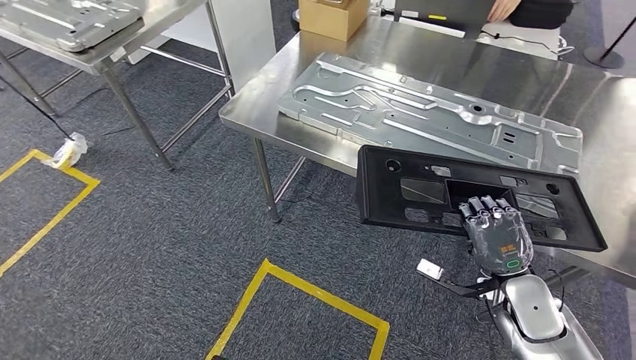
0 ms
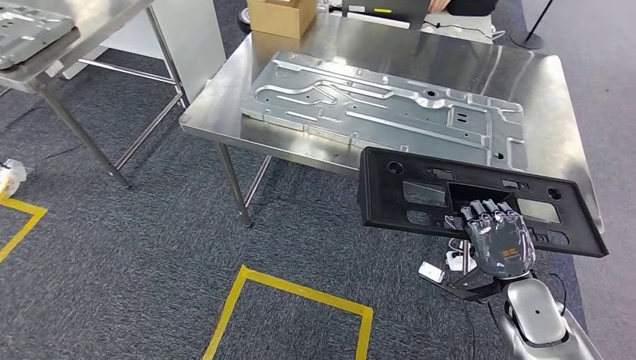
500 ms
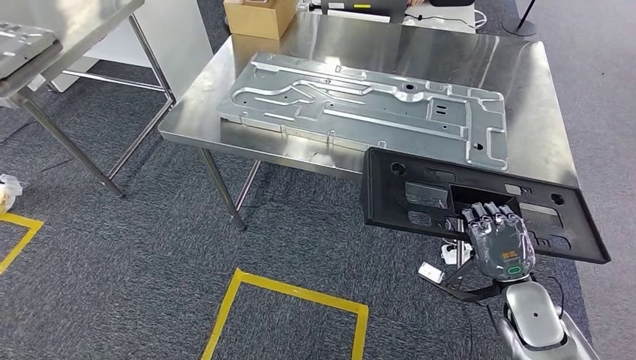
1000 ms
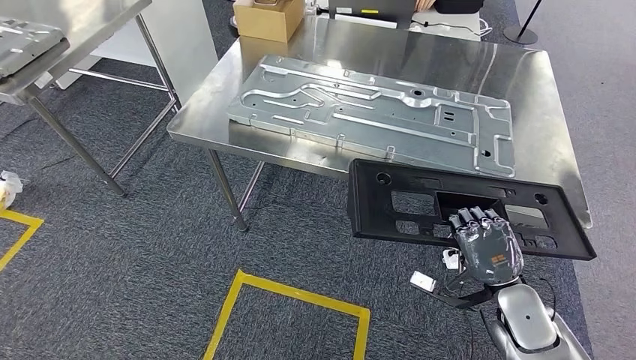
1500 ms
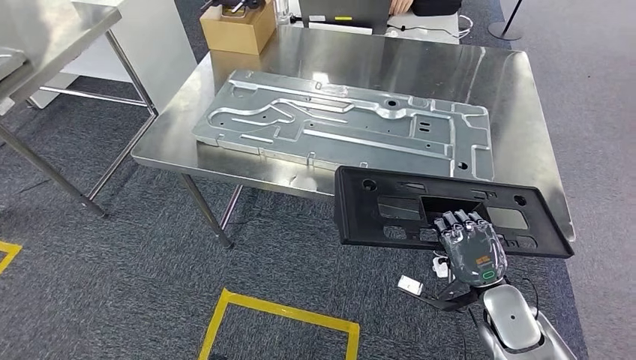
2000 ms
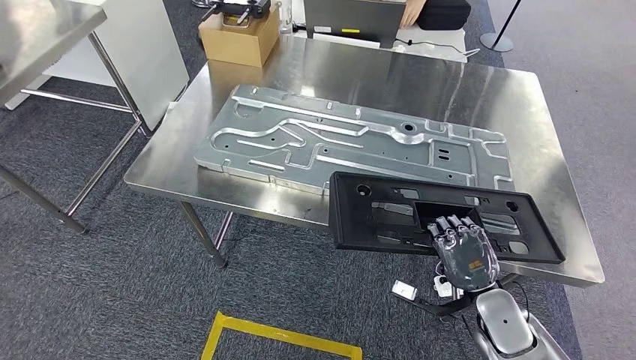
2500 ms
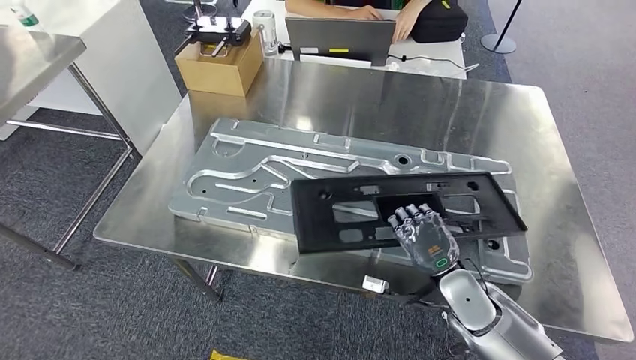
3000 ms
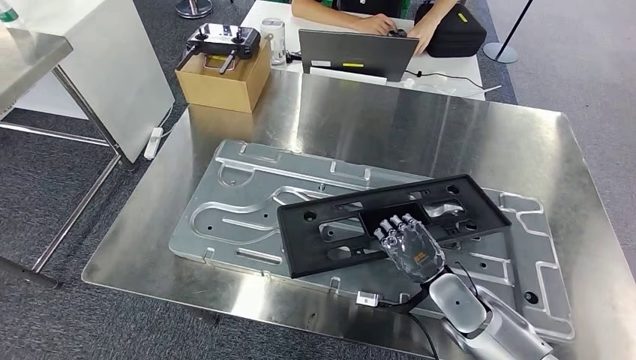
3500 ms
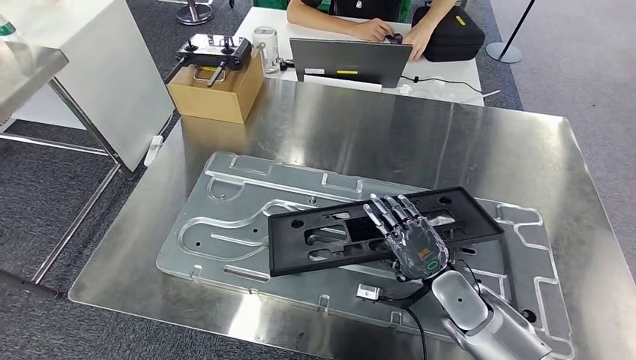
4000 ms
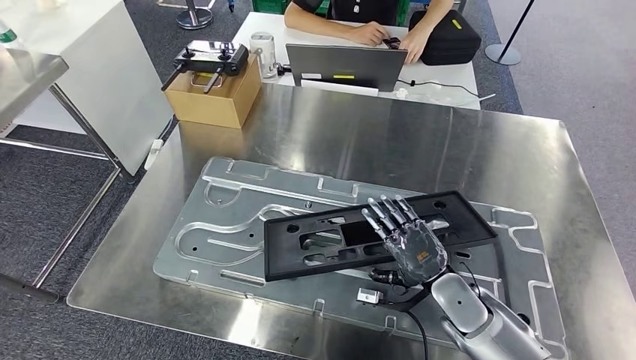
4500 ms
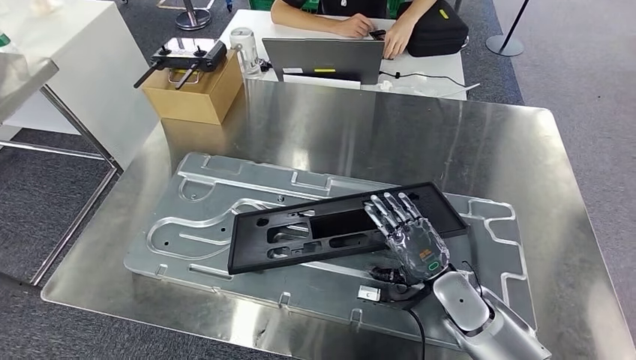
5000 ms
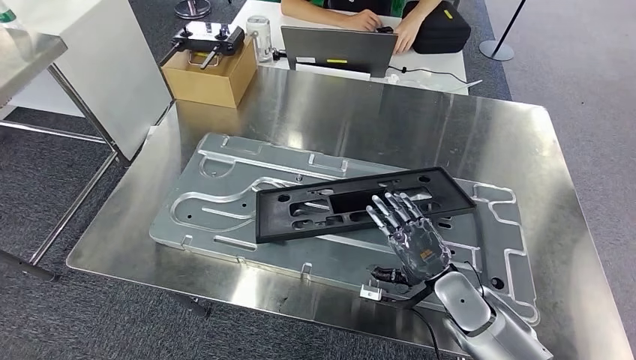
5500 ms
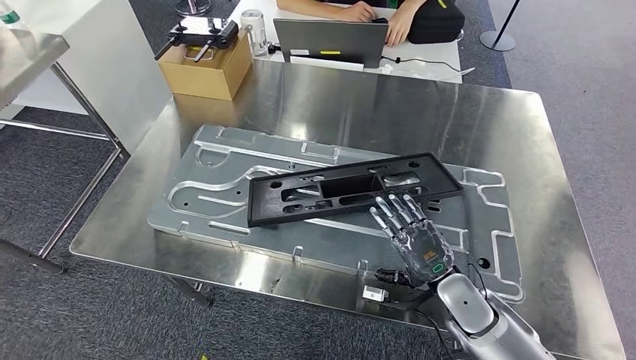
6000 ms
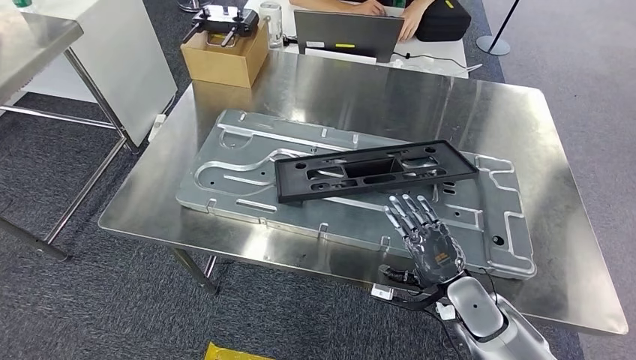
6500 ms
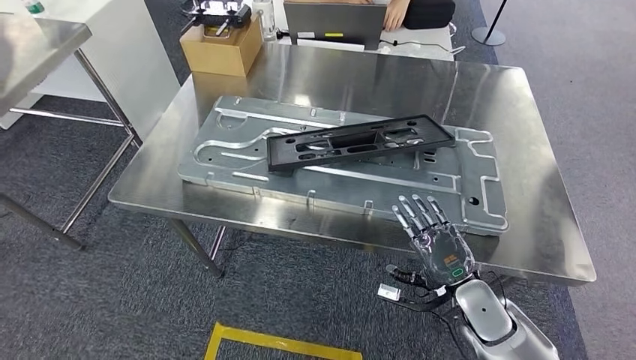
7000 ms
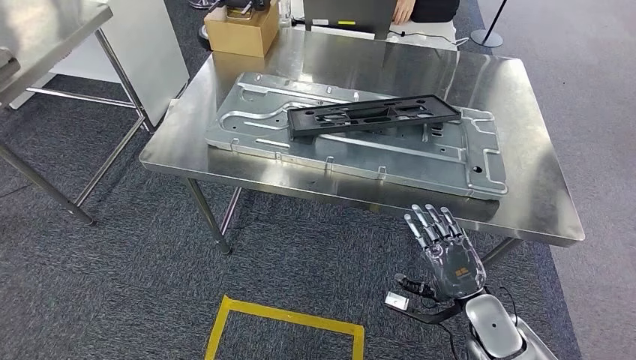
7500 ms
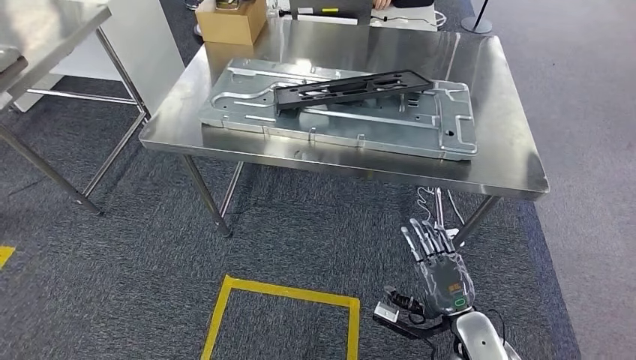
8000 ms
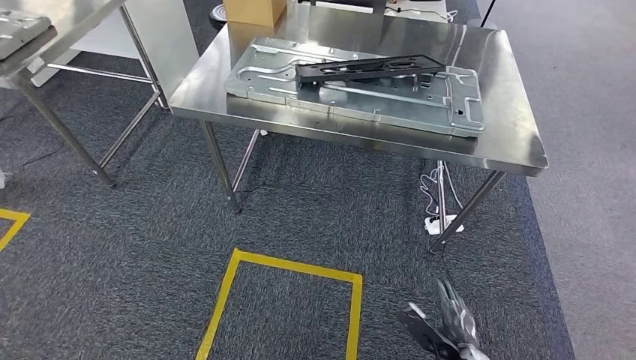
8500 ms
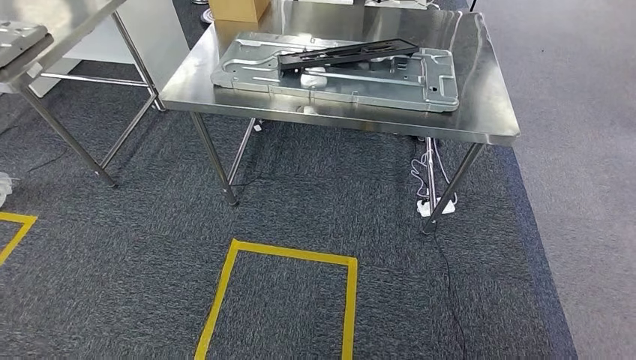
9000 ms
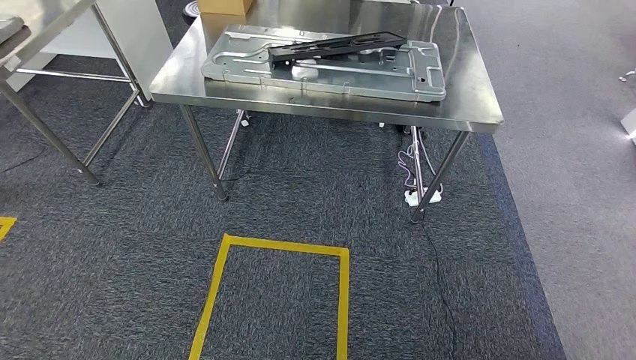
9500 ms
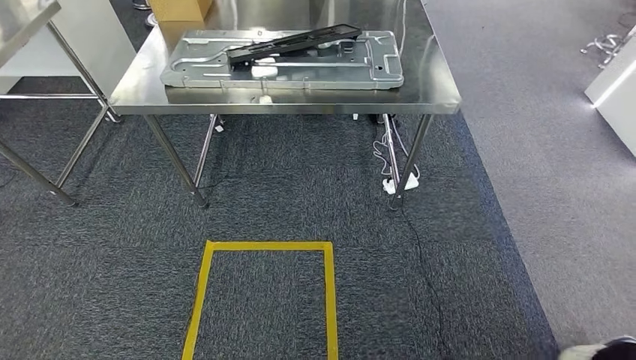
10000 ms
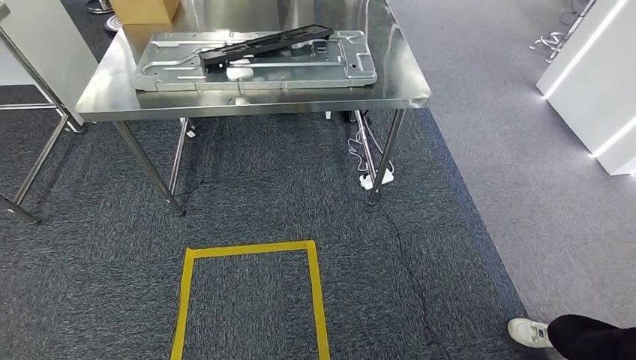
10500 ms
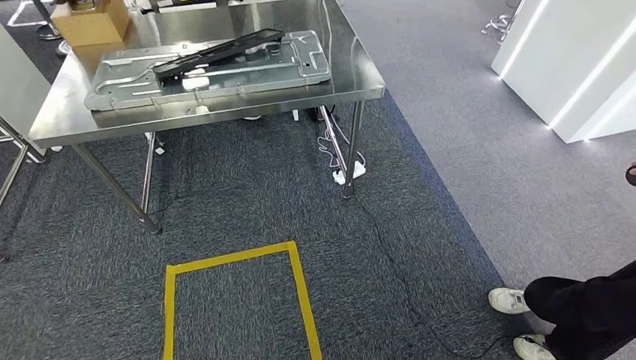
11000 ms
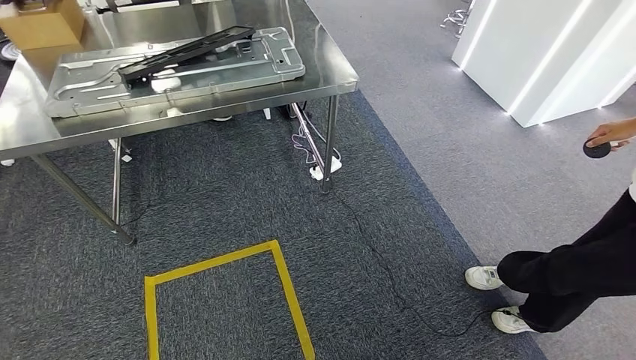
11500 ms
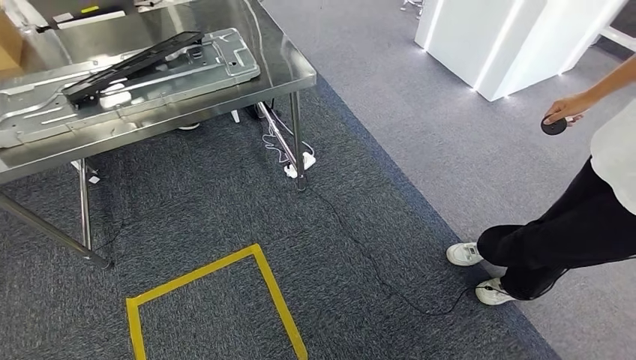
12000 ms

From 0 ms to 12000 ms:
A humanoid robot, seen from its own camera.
Step, from 2000 ms to 5000 ms: Insert the large parts into the corresponding slots on the workbench.

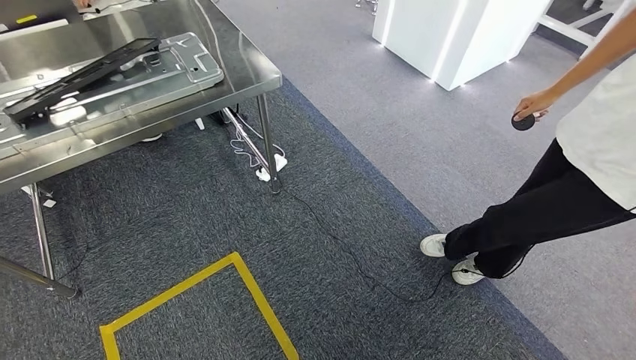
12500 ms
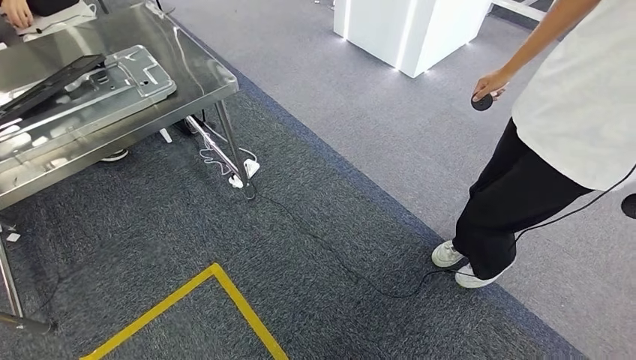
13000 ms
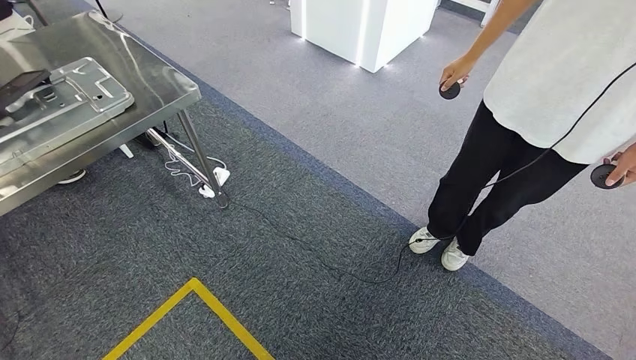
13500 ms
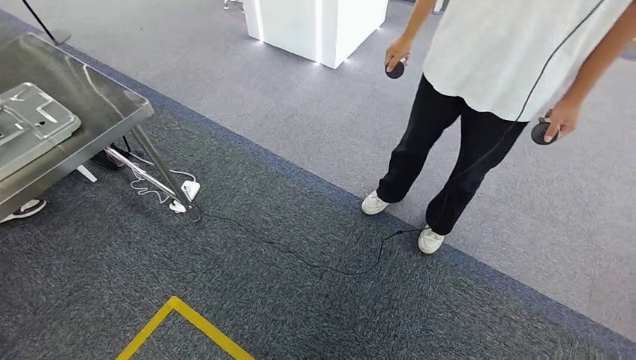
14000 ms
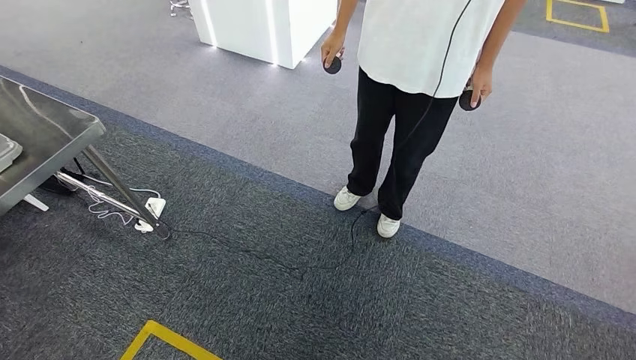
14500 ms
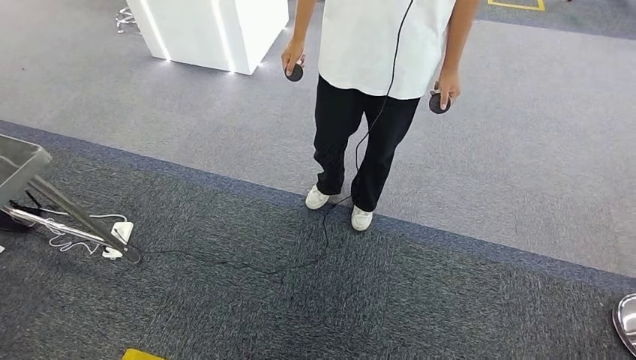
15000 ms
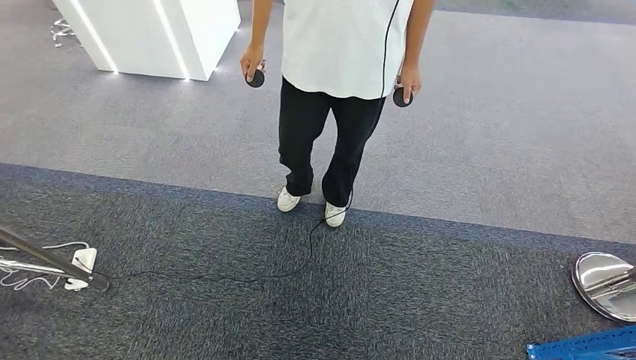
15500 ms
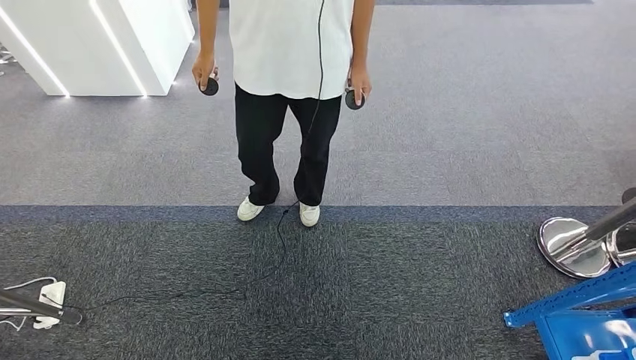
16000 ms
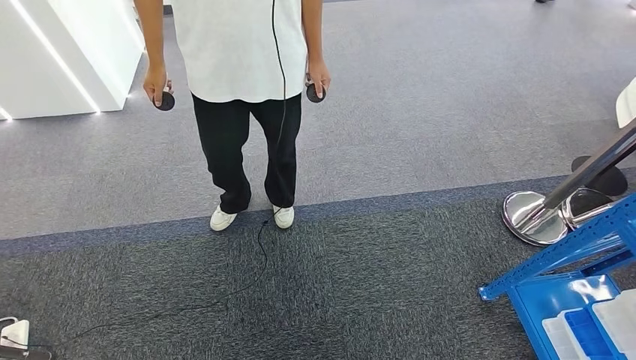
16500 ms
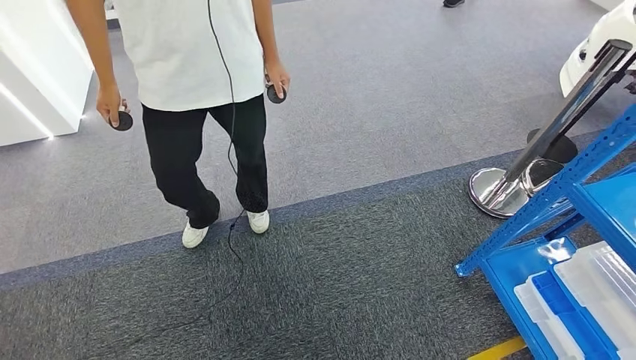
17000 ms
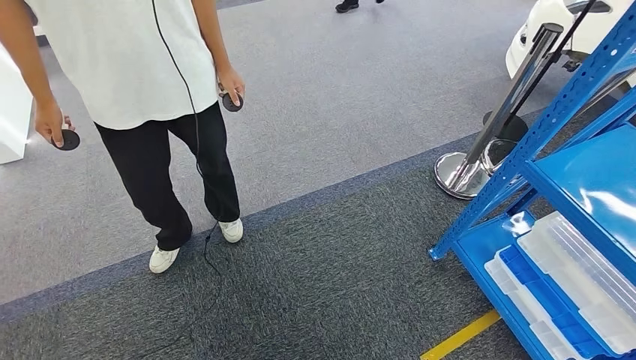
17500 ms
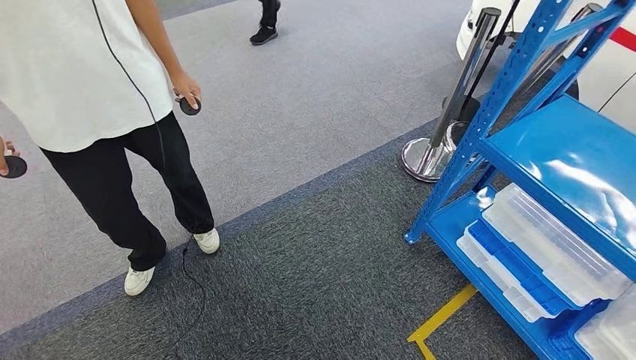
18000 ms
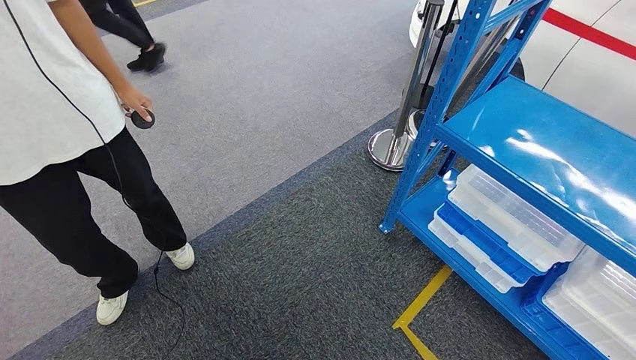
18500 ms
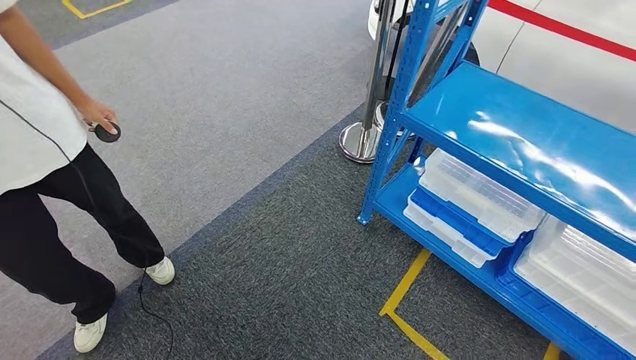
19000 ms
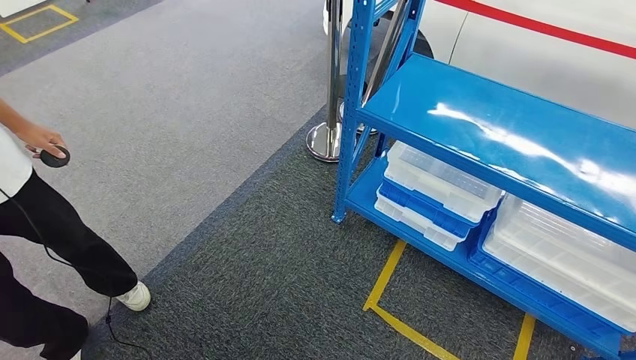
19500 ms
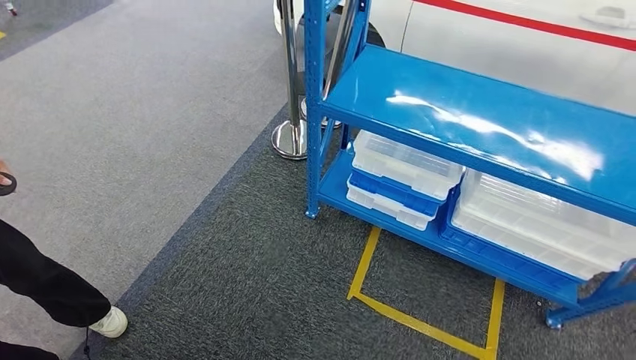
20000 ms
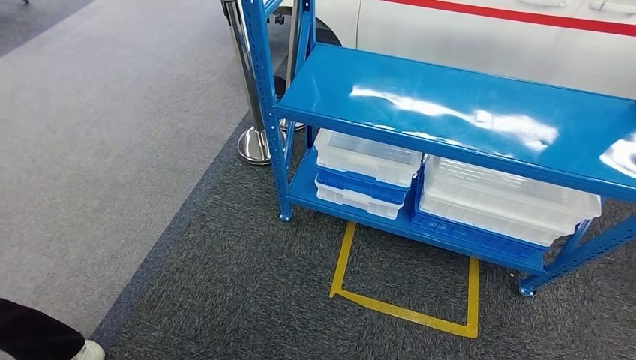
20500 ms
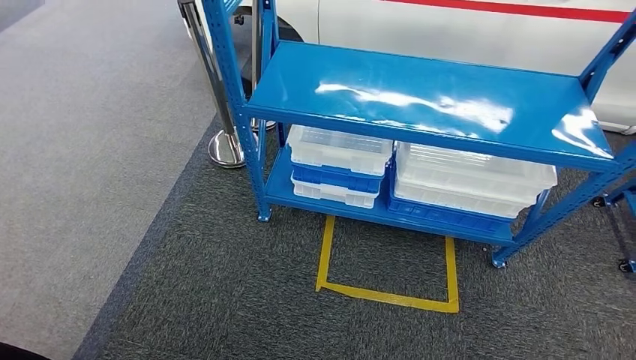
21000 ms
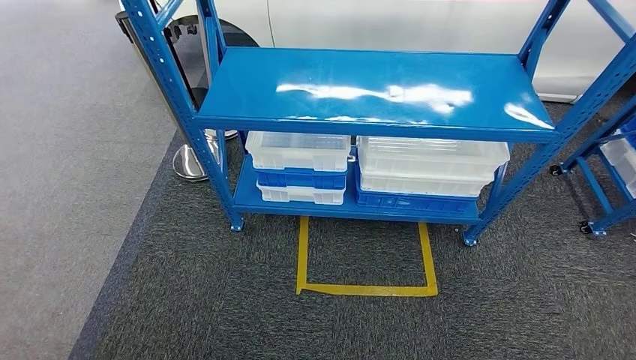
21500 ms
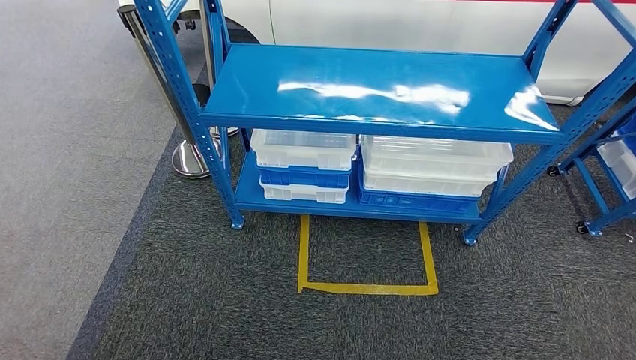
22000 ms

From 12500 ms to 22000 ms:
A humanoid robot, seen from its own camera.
Step, from 12500 ms to 22000 ms: Return to the initial position at the shelf.
